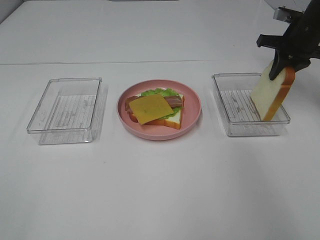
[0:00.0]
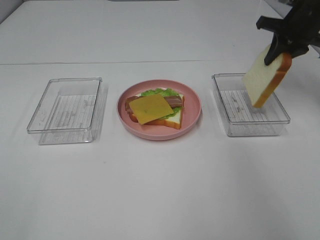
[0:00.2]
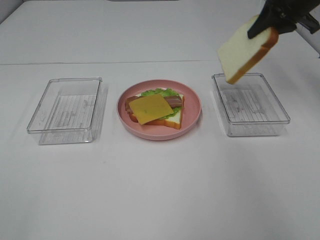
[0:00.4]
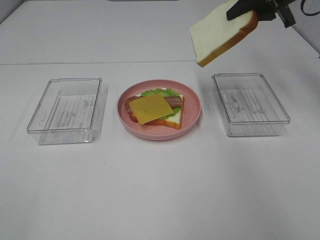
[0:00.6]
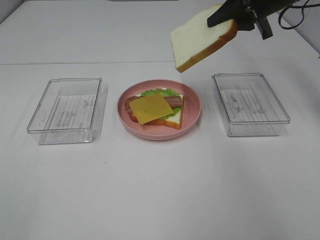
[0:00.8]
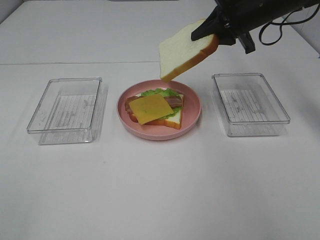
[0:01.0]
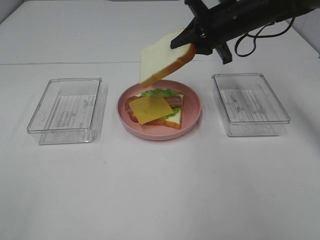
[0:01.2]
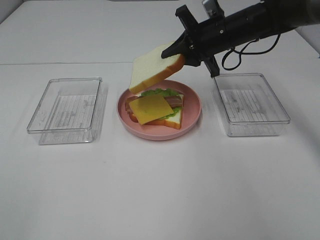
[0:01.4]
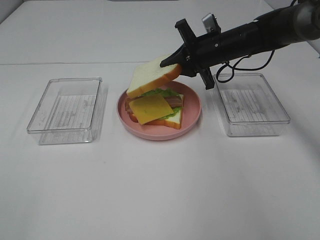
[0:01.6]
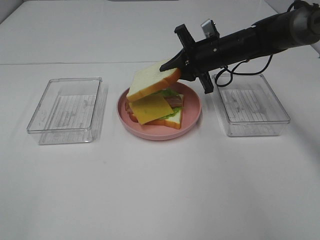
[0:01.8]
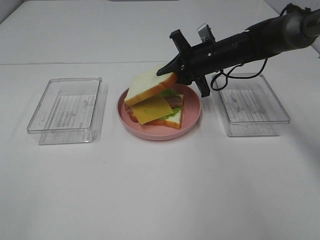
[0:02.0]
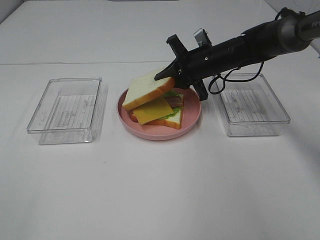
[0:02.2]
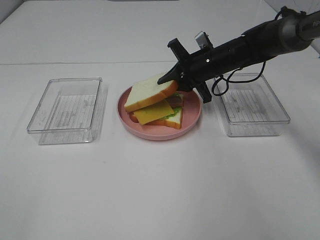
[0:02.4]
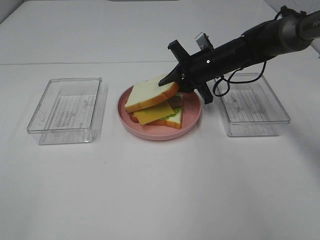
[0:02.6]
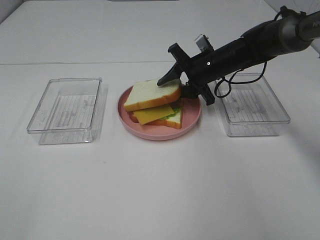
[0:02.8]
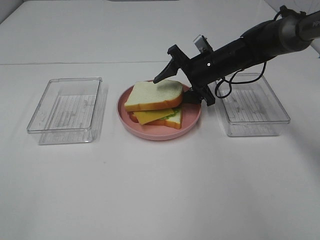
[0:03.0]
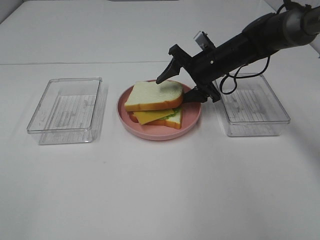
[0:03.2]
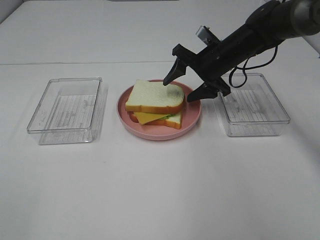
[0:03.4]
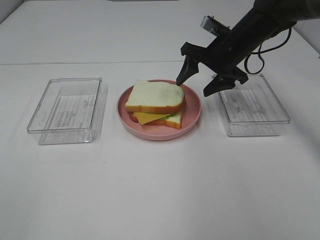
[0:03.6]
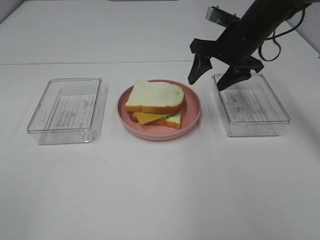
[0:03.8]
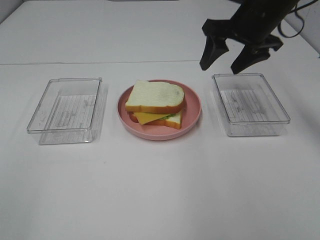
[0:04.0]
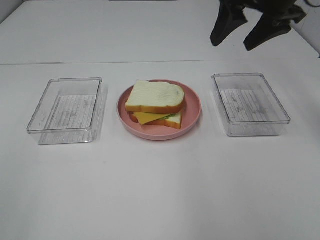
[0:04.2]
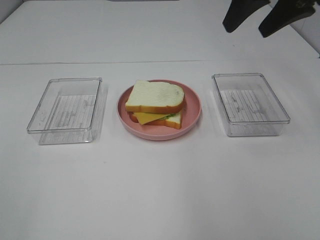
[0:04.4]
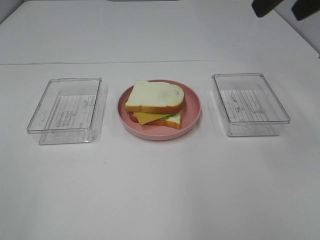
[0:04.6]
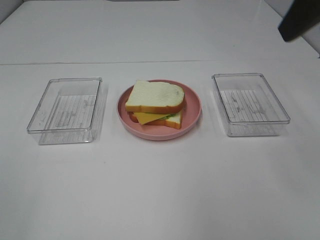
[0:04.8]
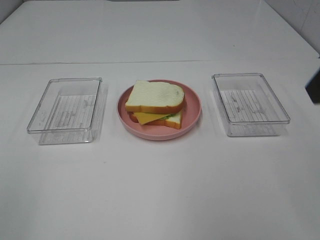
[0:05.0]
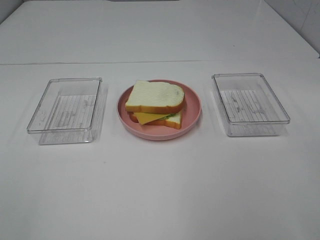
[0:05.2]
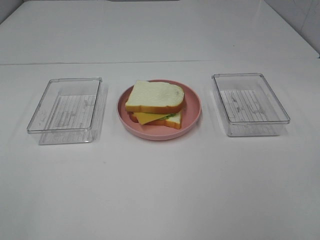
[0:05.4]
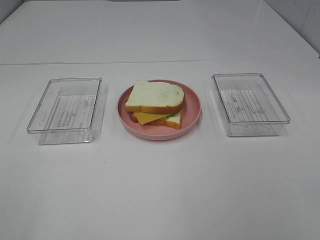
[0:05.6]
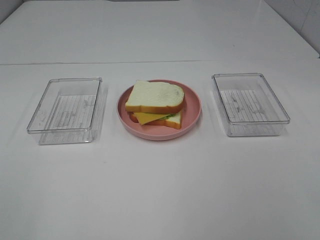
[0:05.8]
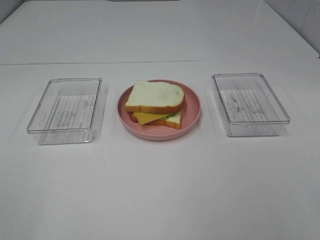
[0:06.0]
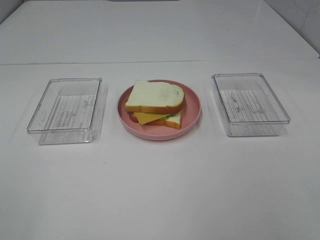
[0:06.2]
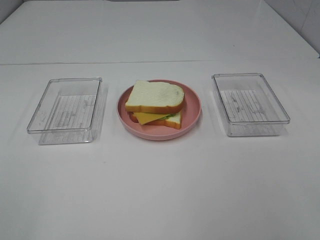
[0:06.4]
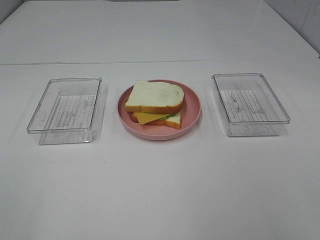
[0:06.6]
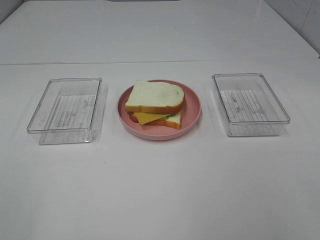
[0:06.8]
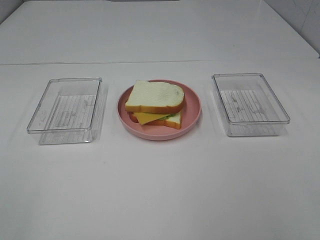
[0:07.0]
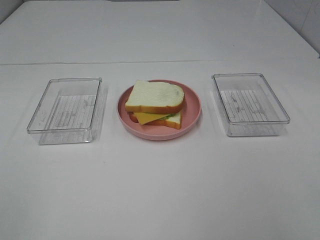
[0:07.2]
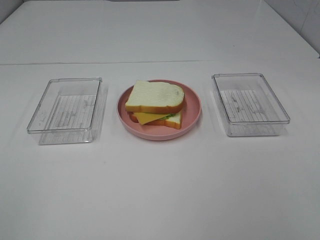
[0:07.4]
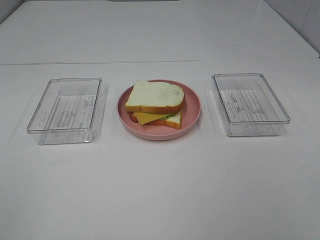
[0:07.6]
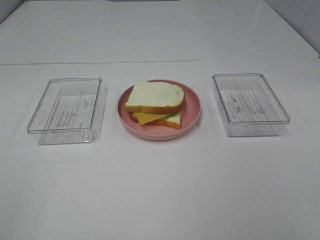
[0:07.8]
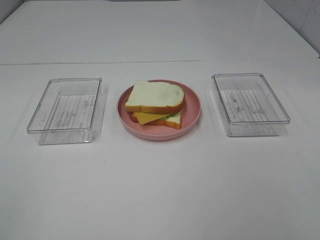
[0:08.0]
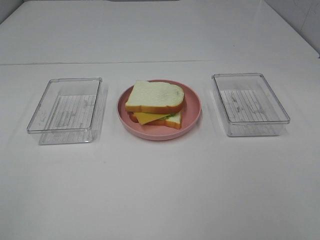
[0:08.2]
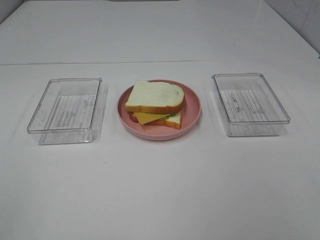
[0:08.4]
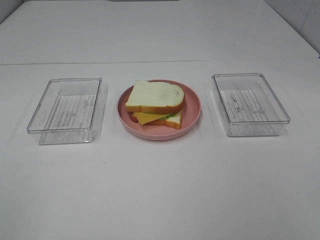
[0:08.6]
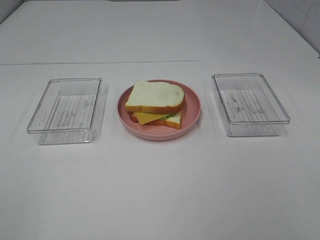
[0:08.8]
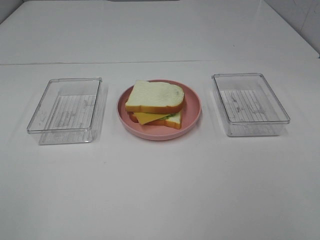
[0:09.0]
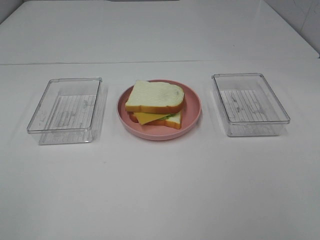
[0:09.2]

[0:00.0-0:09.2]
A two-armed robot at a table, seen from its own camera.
Task of the whole recording: Make sandwiches.
Step, 0:00.2 to 0:03.4: Right hand:place the bread slice on the cheese slice.
0:00.0 to 0:01.6: The right gripper travels to the left by roughly 15 cm.
0:01.6 to 0:03.0: The right gripper opens its fingers.
0:03.0 to 0:04.6: The right gripper travels upward and backward by roughly 35 cm.
0:04.6 to 0:06.2: The right gripper travels backward by some 30 cm.
0:07.6 to 0:09.2: Both grippers stay put.

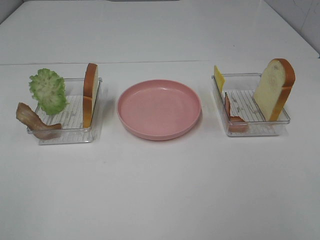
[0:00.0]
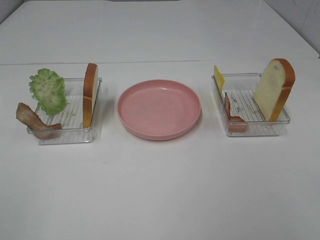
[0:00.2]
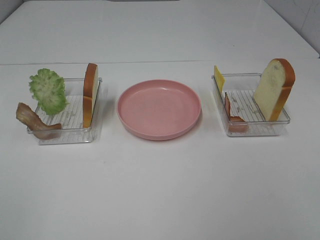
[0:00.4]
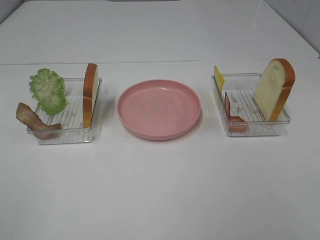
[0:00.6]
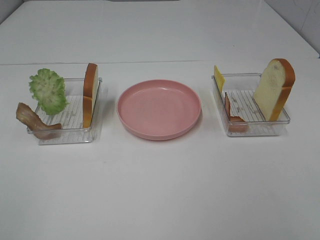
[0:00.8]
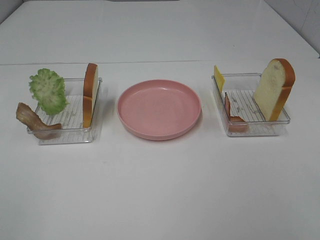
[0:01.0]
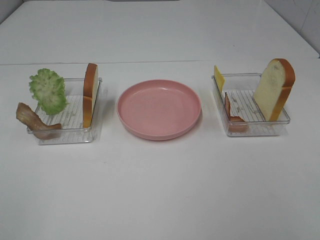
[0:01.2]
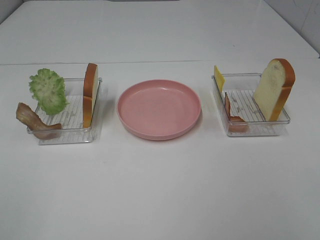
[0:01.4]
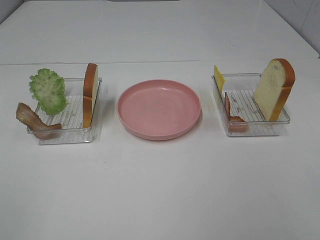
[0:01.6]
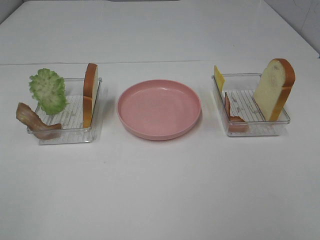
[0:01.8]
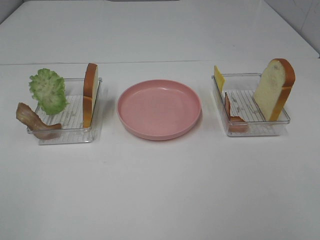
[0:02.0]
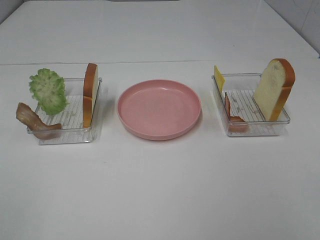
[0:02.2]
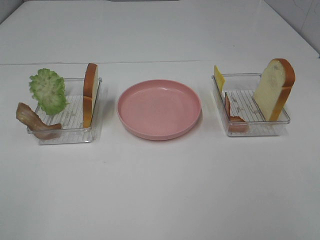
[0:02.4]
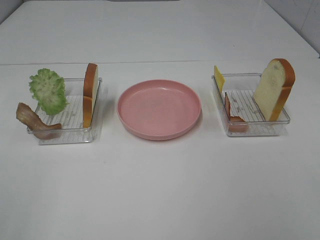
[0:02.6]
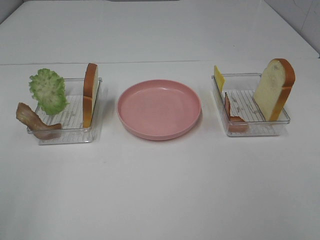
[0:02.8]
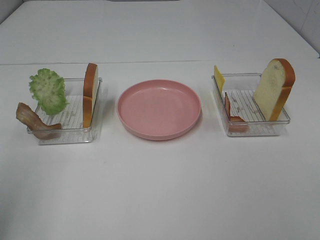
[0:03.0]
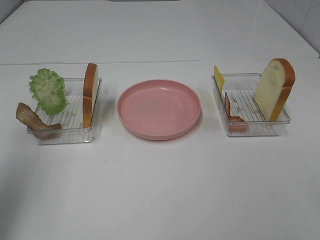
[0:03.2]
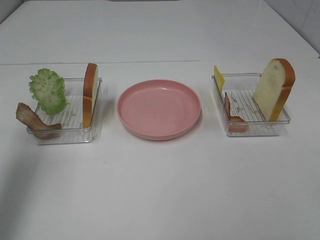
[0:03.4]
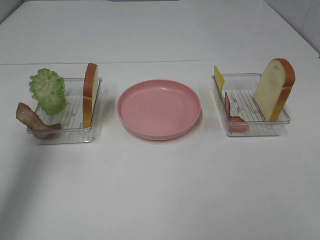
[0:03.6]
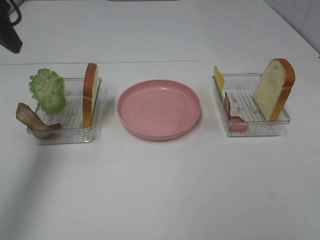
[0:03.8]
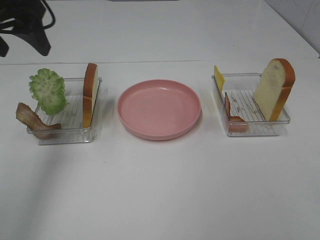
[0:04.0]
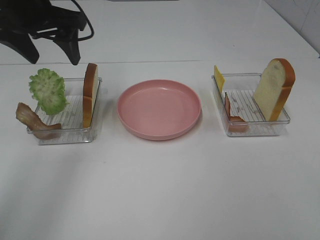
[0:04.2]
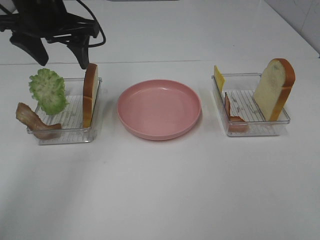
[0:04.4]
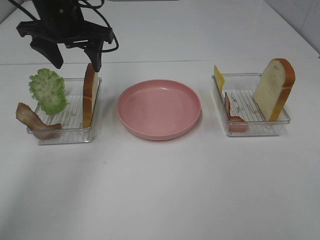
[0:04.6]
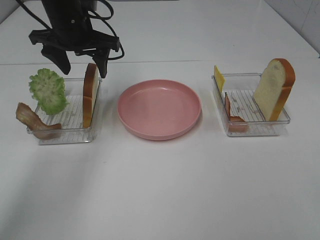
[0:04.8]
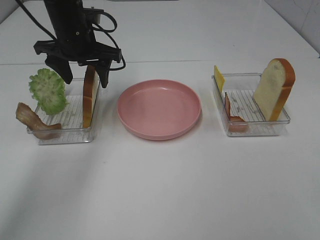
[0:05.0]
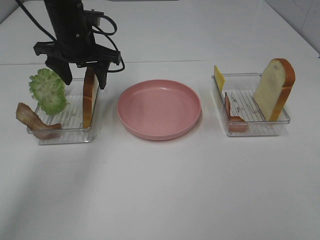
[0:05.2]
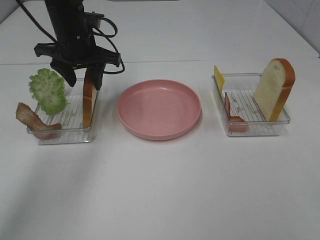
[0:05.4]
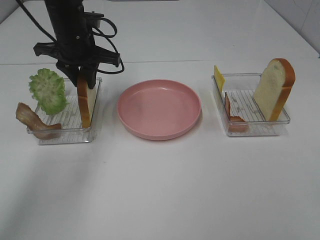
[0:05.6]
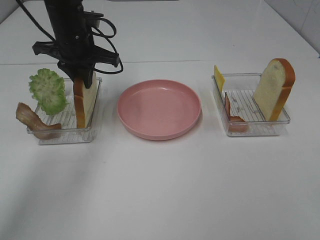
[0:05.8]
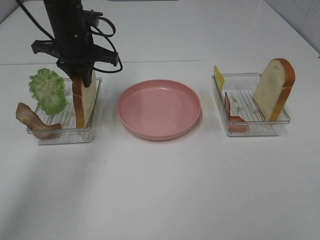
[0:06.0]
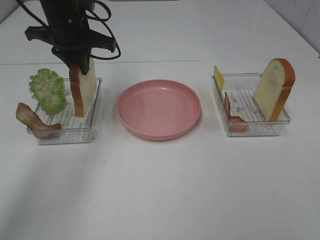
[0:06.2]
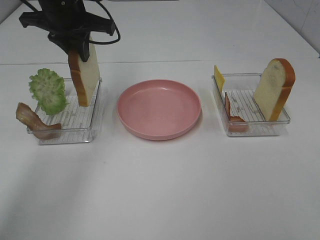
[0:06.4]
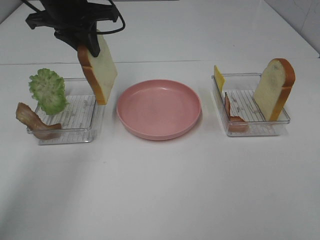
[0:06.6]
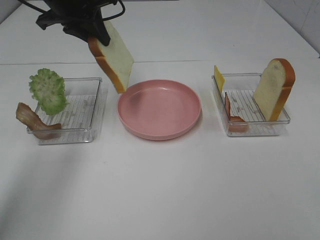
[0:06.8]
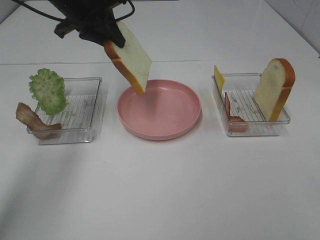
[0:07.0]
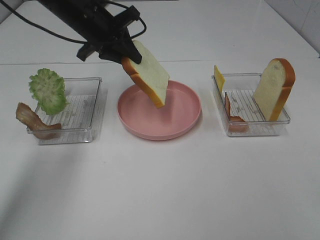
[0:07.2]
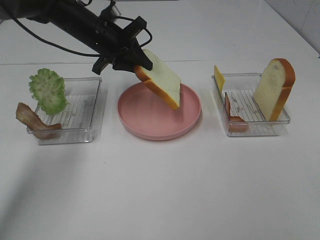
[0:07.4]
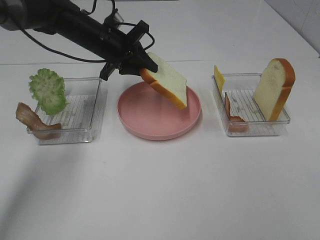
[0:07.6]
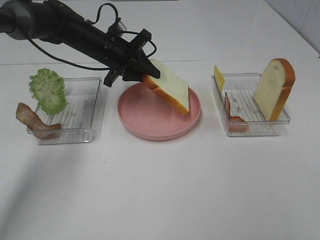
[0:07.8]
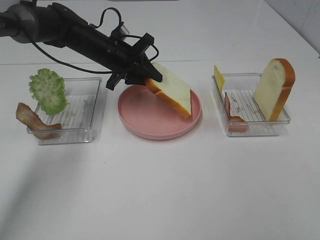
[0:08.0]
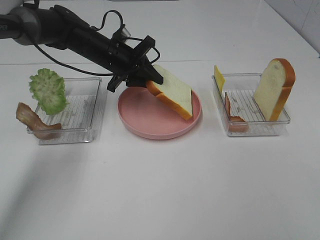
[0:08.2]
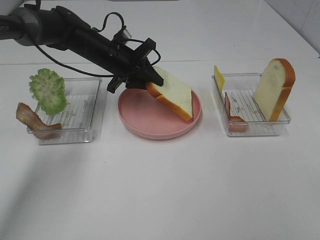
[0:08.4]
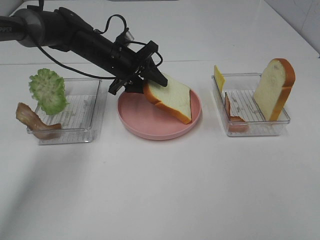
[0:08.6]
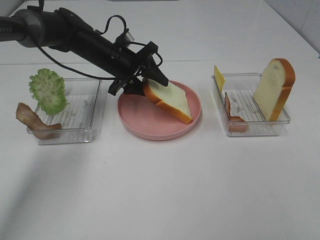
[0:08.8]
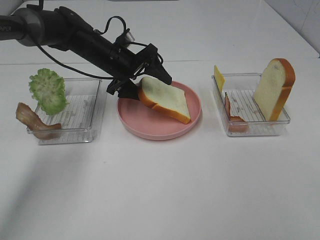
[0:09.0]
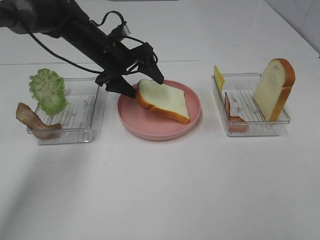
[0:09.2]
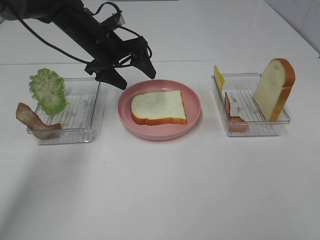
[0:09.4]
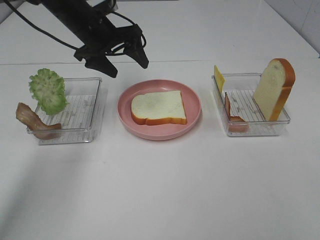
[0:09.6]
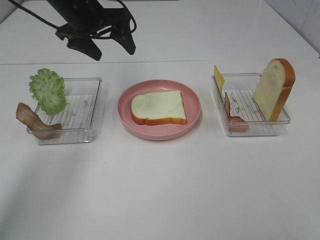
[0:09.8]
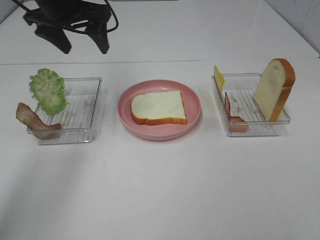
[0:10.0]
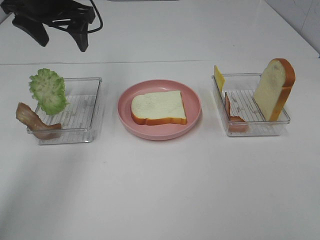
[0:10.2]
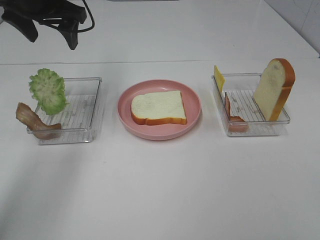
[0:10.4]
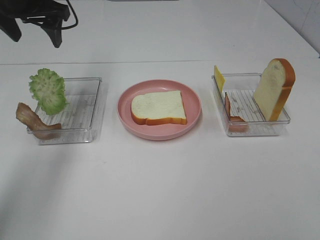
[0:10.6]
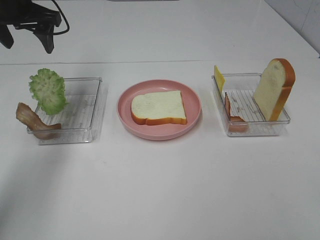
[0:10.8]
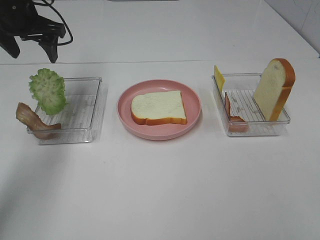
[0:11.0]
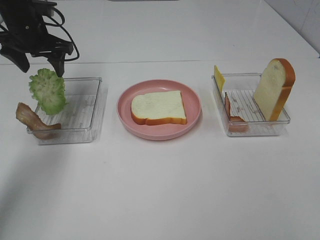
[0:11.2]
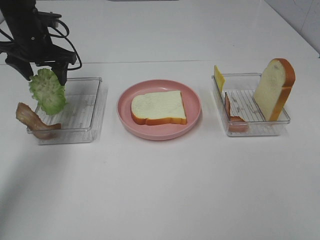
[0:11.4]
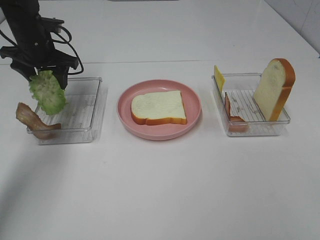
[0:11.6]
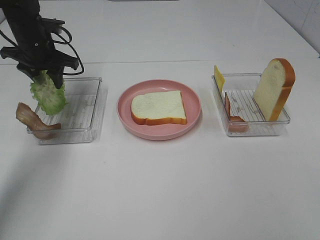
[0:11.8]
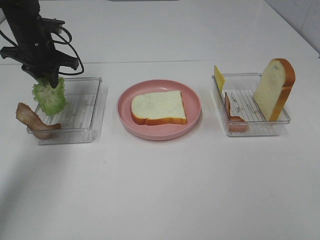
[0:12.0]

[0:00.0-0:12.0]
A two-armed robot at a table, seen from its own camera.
Task of the whole recording: Make sandwiches.
Step, 0:00.0 to 0:05.8: Left hand:grab the bread slice.
Step, 0:06.0 to 0:09.6: Left hand:place the bread slice on the plate.
0:00.0 to 0:01.6: Both grippers stay about where they are.
0:01.6 to 0:03.0: The left gripper moves forward, approximately 15 cm.
0:03.0 to 0:04.4: The left gripper shifts some 30 cm forward and to the right.
0:04.4 to 0:06.0: The left gripper goes approximately 5 cm downward, and closes.
0:06.0 to 0:07.6: The left gripper goes approximately 5 cm downward.
0:07.6 to 0:09.0: The left gripper opens.
0:09.0 to 0:10.4: The left gripper heads upward and to the left, covering approximately 20 cm.
0:10.4 to 0:12.0: The left gripper is displaced downward by about 10 cm, and closes up.

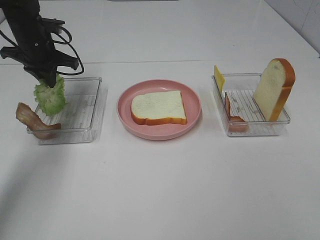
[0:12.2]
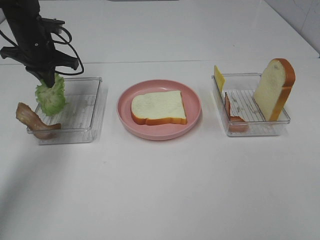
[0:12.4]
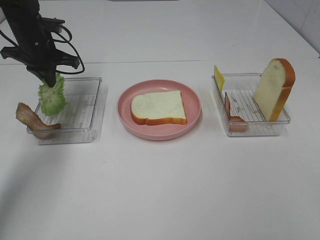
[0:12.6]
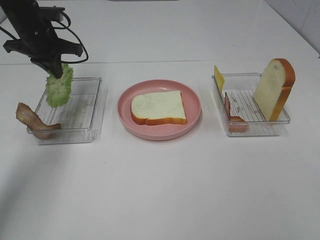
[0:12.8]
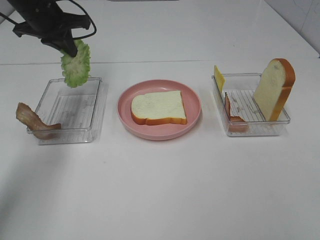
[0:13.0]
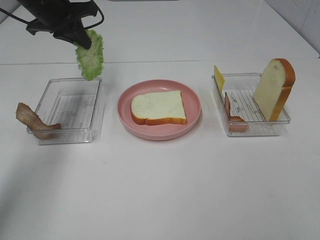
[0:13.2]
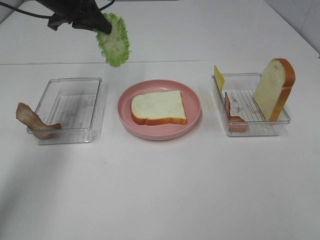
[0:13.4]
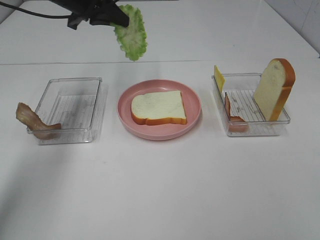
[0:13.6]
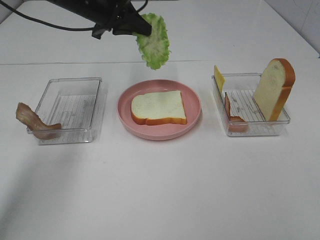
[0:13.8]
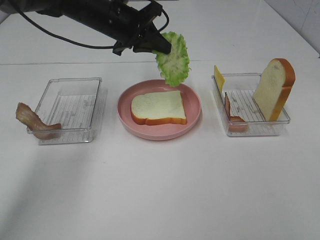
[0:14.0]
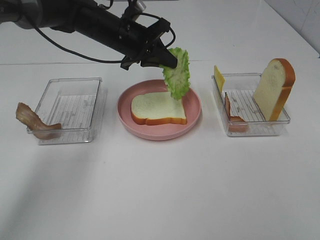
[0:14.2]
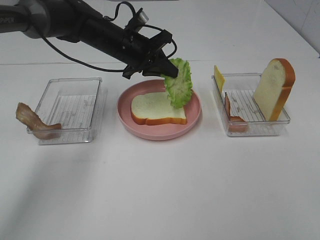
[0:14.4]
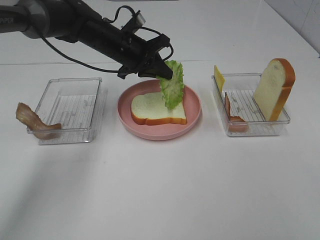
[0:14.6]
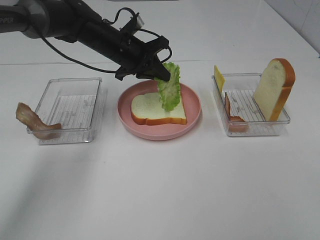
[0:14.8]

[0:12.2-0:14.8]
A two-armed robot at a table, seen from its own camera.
Task of the whole recording: Make sandwiches.
0:12.2 to 0:13.4: The left gripper travels upward and to the right by roughly 10 cm.
0:13.4 to 0:14.8: The left gripper travels downward and to the right by approximately 15 cm.
